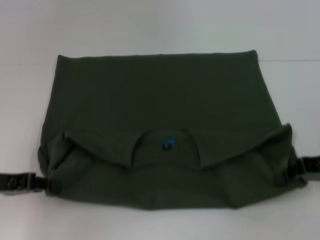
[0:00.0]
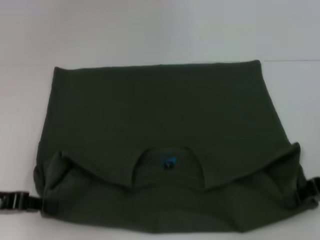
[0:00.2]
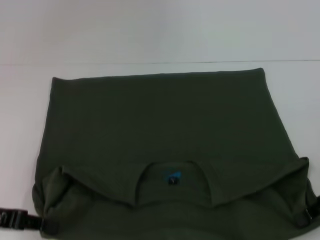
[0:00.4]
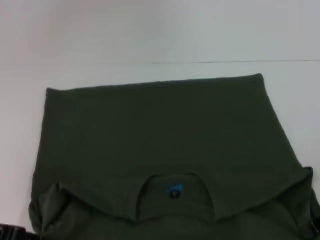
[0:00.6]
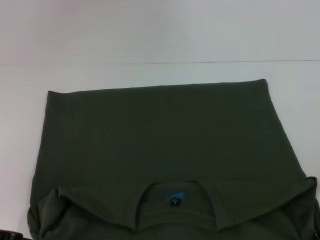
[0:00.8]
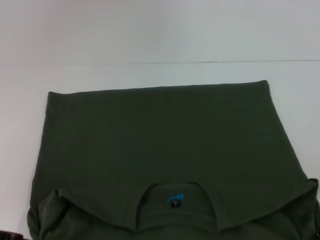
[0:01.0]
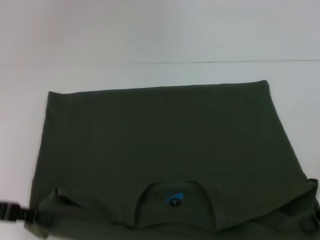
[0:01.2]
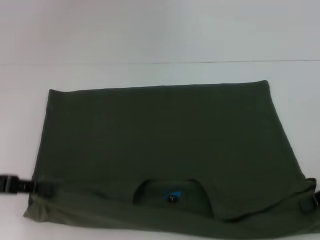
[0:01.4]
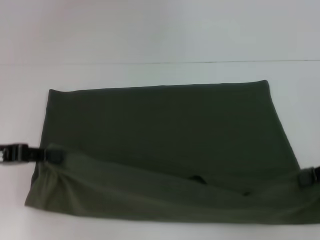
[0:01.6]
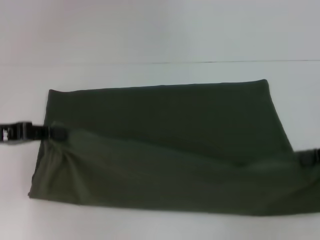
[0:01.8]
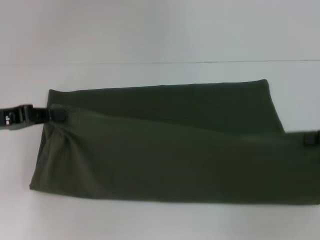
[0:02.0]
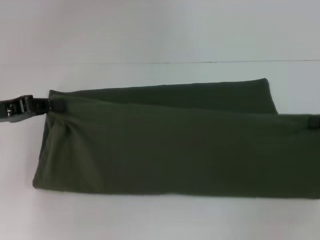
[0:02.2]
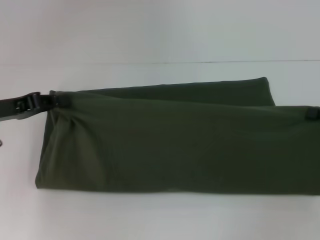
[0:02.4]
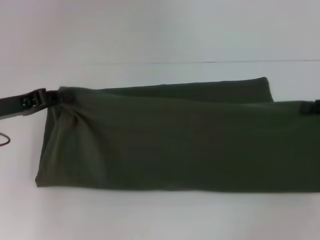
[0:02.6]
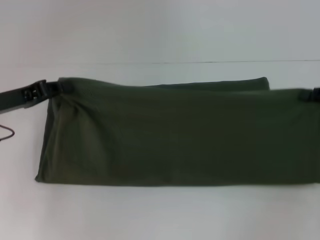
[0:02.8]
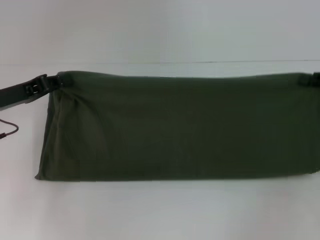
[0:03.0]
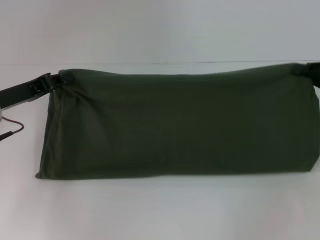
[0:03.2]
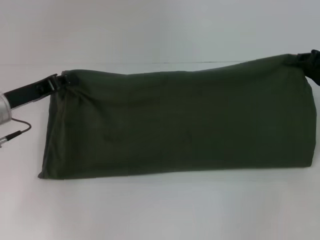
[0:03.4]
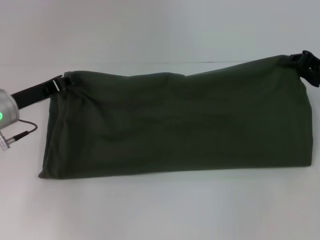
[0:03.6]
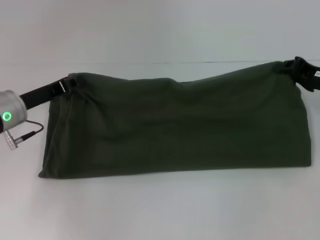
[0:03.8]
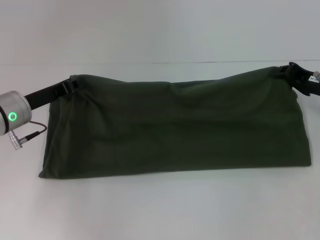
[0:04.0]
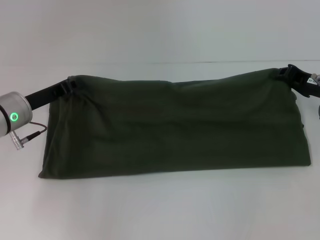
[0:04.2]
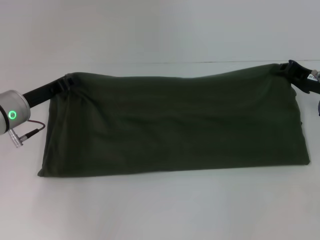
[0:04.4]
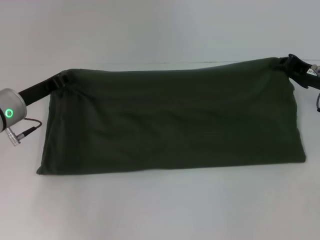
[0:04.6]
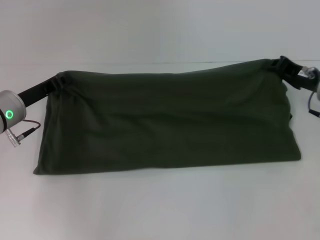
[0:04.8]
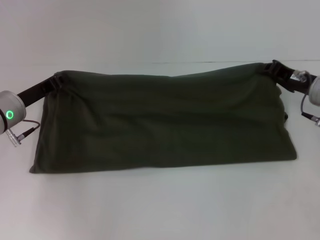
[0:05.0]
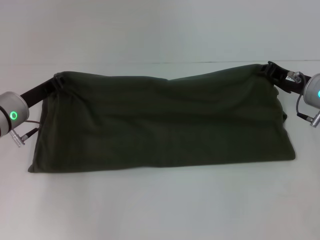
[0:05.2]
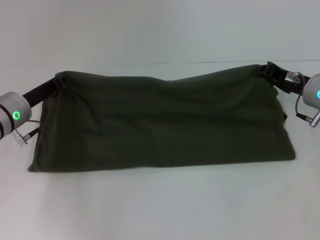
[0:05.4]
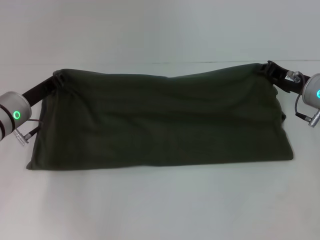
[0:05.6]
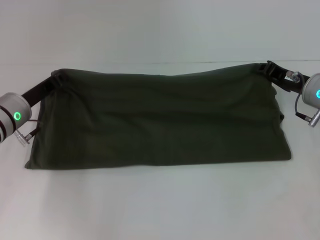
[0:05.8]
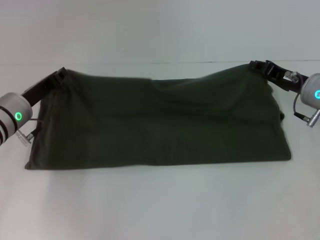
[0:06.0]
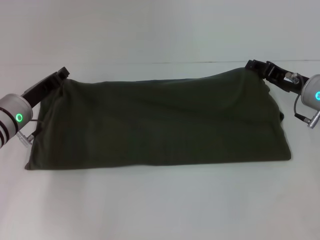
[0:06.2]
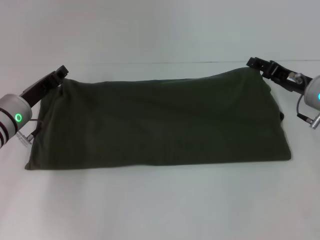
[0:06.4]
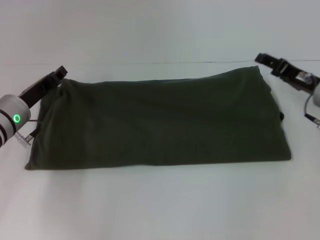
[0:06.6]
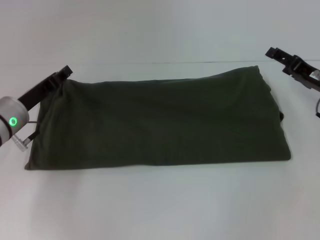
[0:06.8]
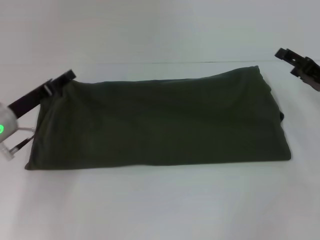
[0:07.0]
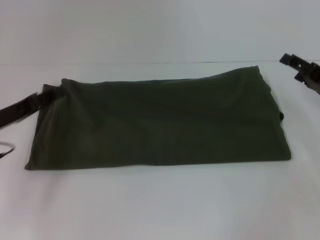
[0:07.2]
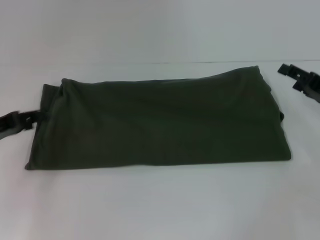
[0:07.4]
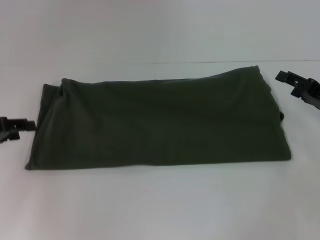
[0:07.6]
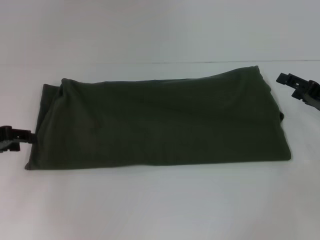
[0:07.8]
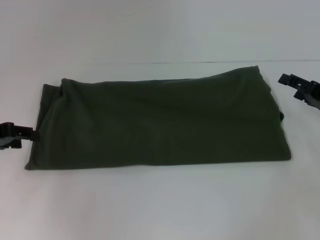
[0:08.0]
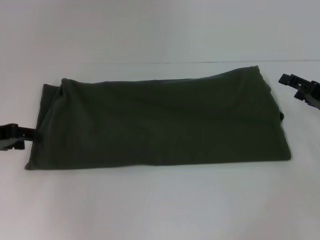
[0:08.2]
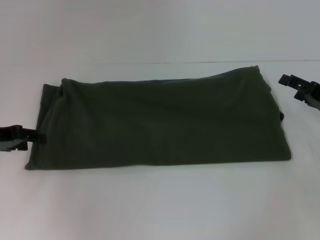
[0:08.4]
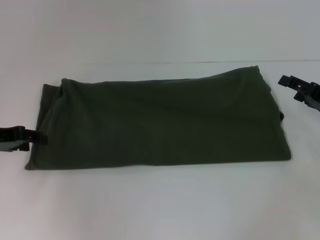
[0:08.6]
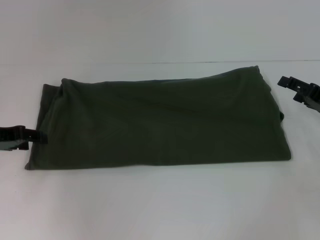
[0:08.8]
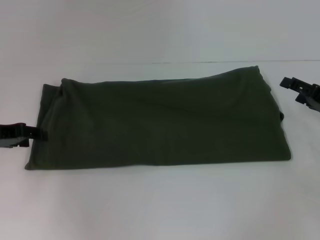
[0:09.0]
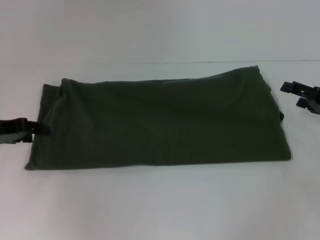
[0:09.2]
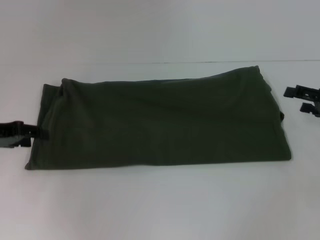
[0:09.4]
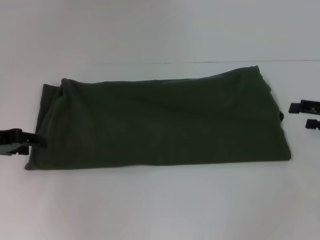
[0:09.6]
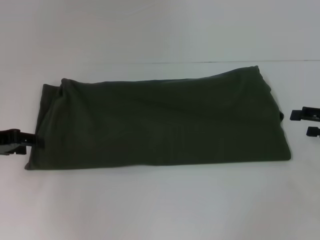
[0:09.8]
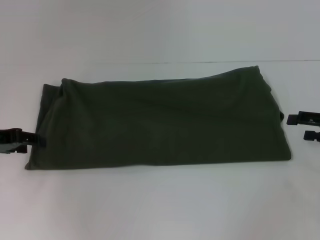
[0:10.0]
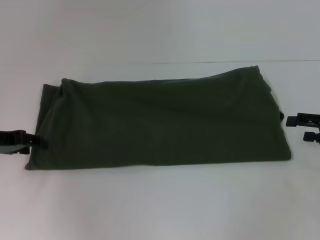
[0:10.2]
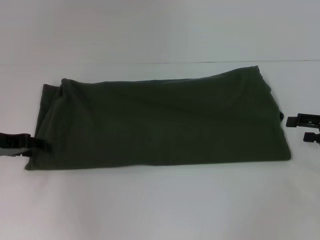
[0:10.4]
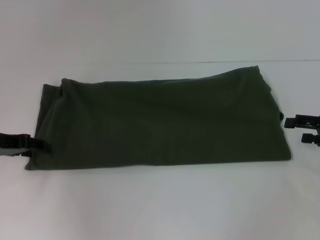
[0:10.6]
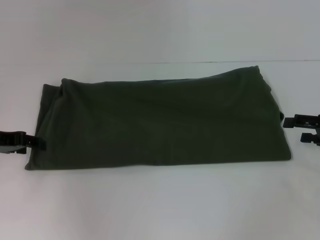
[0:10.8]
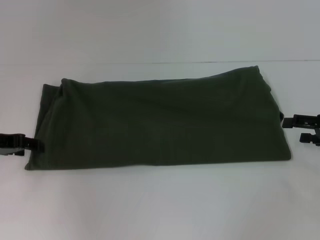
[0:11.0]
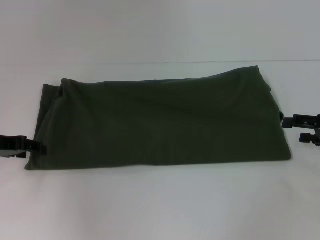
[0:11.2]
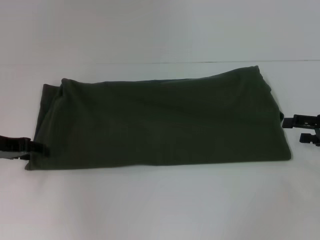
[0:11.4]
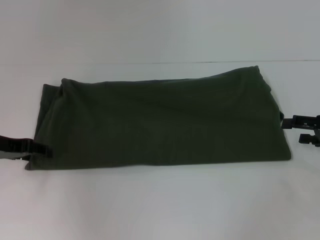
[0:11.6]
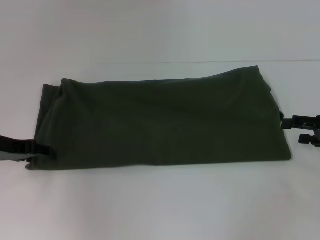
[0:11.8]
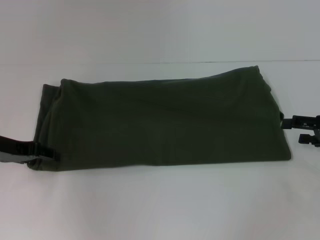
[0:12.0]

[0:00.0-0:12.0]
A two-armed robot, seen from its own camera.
Step, 0:00.8 to 0:06.0: Fold the clothes with your right hand.
0:01.6 to 0:03.0: The left gripper is displaced forward by about 5 cm.
0:03.0 to 0:04.4: The right gripper goes about 5 cm to the left. The left gripper shifts by about 5 cm.
0:04.4 to 0:06.0: The grippers make only small movements.
0:06.0 to 0:07.6: The right gripper heads to the right and backward, covering approximately 10 cm, and opens its fingers, while the left gripper shifts about 15 cm to the left, backward and upward, and opens.
0:07.6 to 0:09.0: The grippers make only small movements.
0:10.4 to 0:12.0: There are only small adjustments of the grippers.

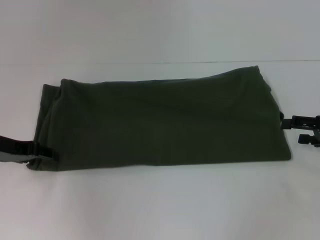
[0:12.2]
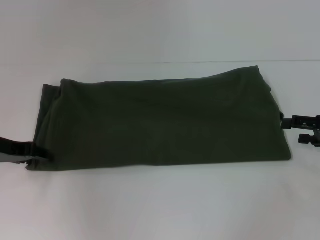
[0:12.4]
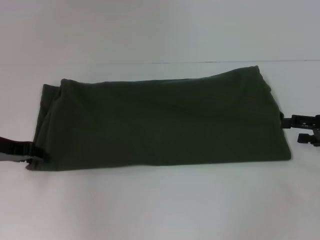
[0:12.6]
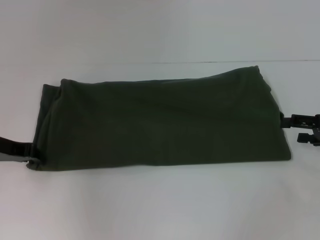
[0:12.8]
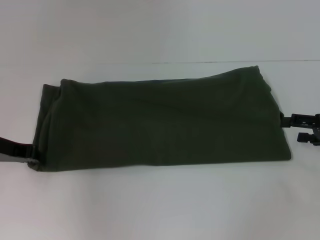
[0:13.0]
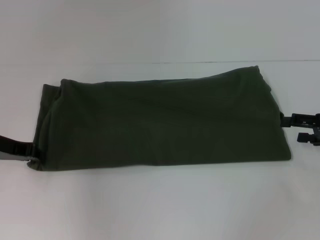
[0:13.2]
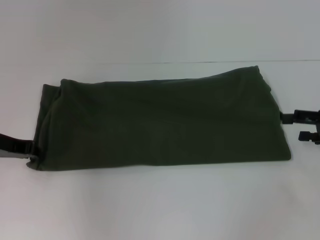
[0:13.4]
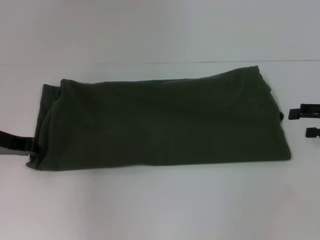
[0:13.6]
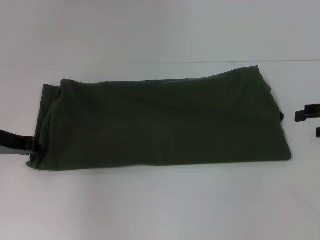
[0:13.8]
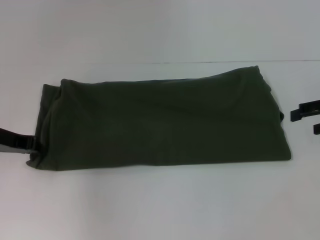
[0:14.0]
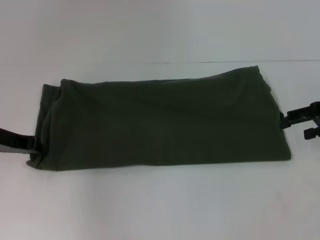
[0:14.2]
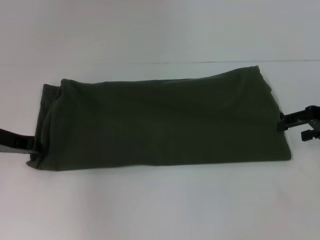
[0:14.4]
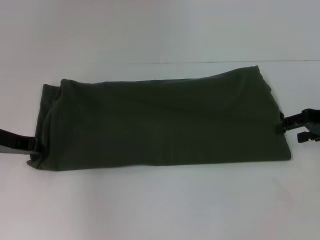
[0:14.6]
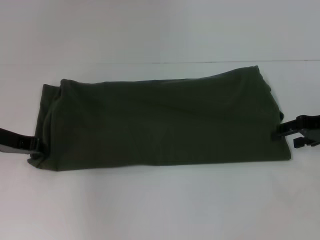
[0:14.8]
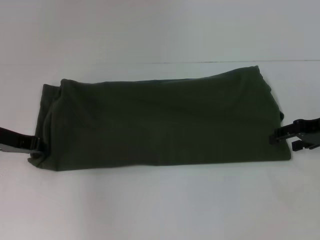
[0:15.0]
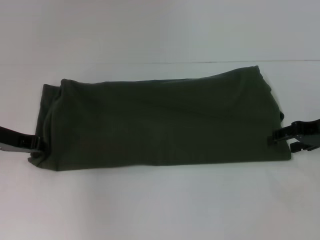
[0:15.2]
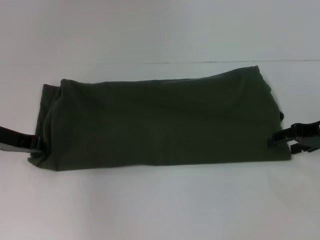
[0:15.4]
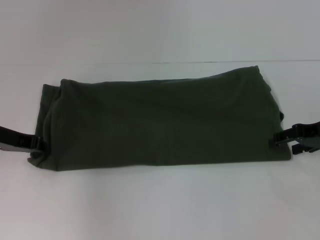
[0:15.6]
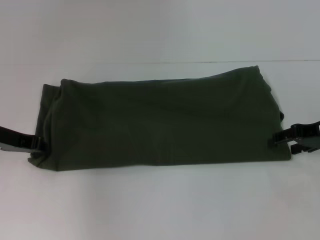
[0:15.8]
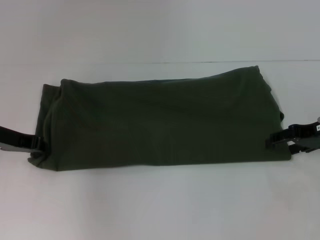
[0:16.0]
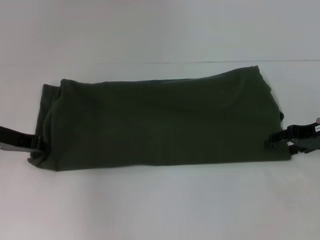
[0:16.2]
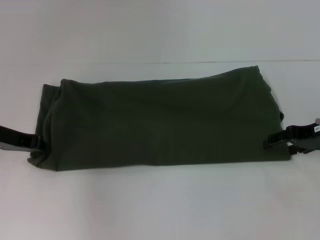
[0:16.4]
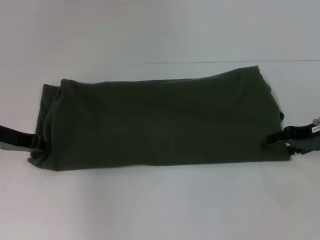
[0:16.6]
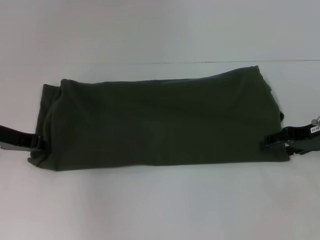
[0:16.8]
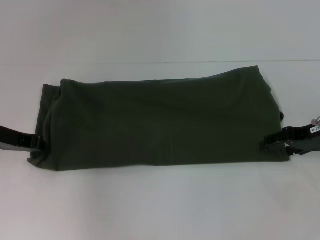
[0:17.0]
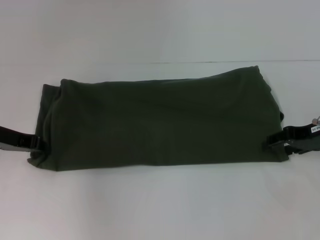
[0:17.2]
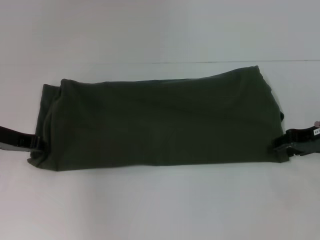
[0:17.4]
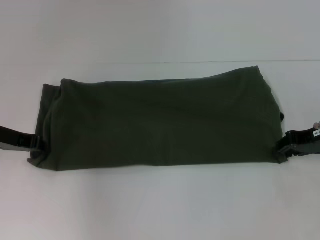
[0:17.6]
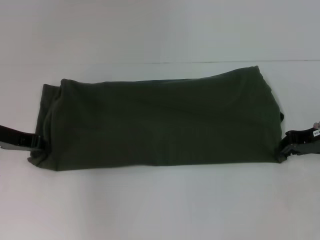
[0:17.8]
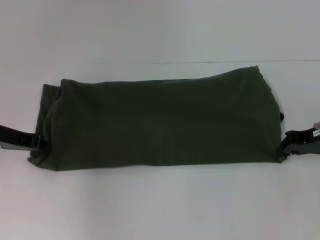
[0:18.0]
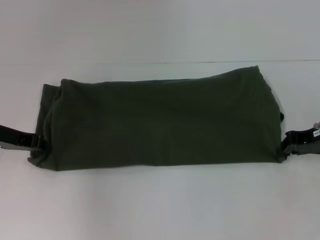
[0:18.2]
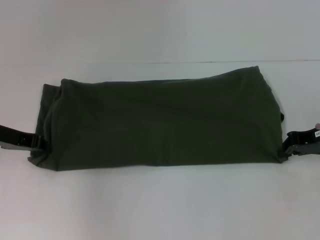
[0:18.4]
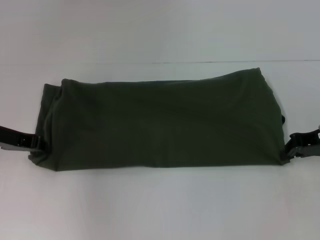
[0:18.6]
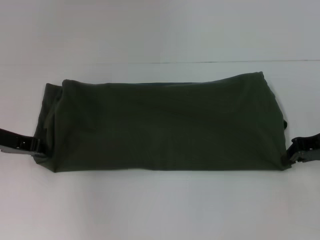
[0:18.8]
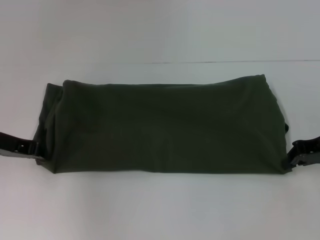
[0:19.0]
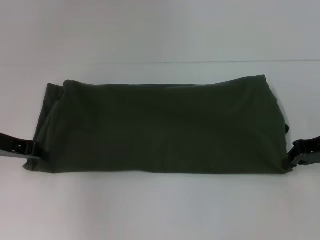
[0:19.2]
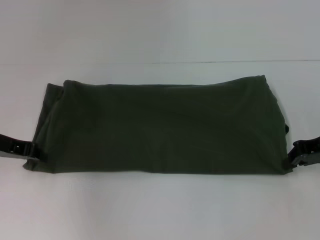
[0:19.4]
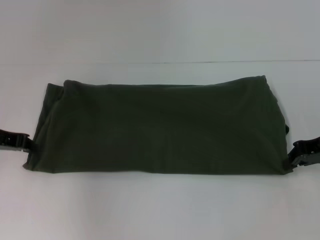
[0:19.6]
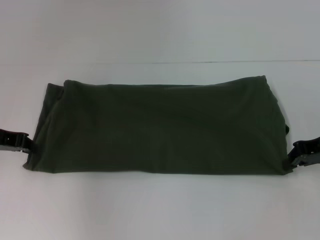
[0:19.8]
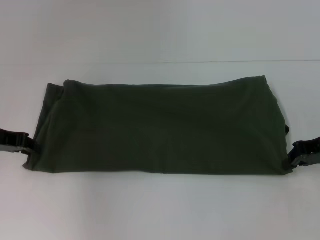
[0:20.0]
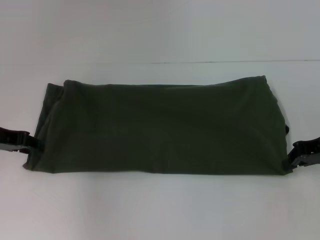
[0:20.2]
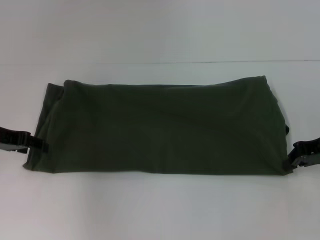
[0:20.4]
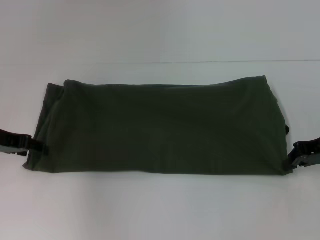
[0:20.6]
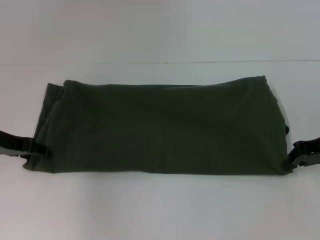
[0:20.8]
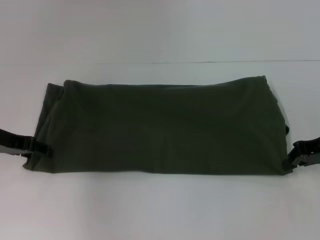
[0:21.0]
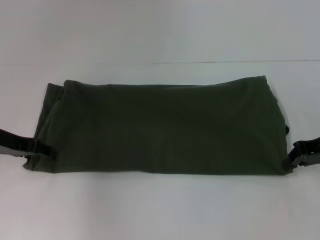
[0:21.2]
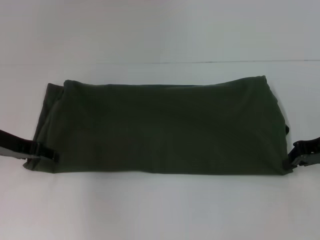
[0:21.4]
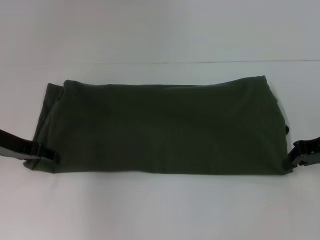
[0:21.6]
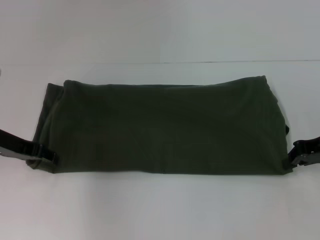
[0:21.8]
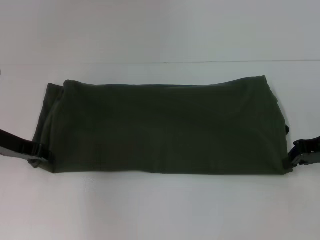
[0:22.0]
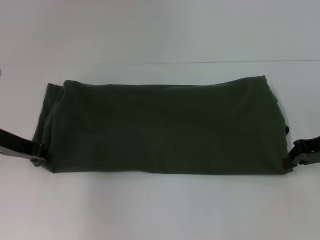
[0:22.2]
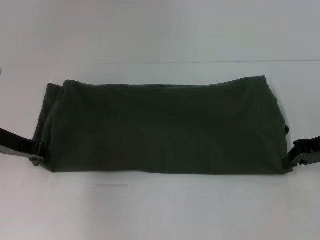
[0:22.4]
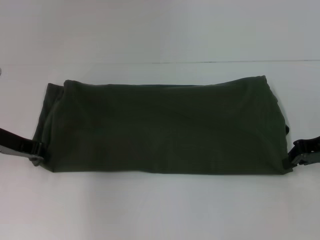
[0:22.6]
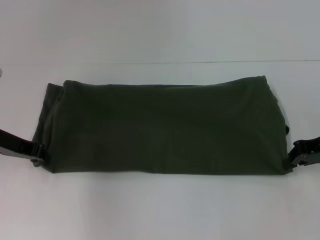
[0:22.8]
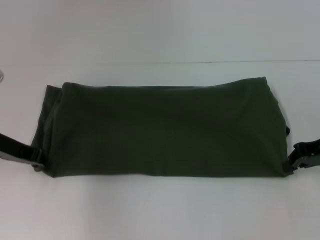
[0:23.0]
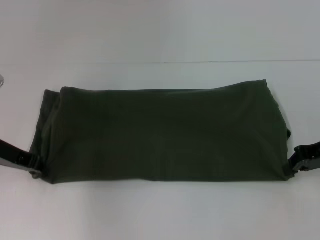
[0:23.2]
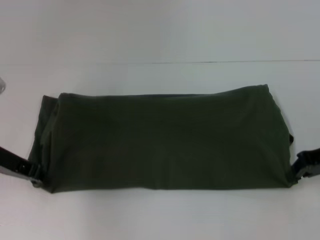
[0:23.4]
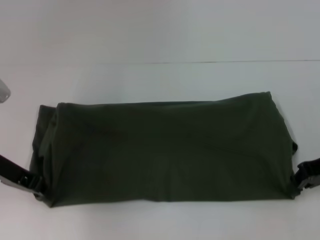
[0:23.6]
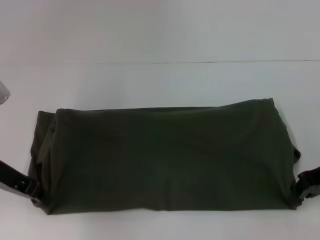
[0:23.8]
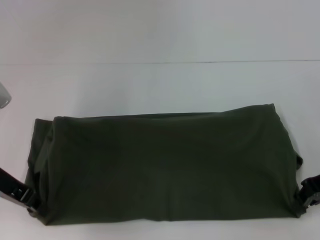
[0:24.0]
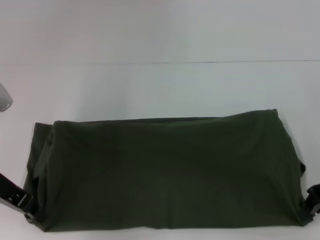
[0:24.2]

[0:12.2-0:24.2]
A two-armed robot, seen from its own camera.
0:12.2 to 0:13.8: The right gripper heads upward, covering roughly 5 cm; the left gripper closes its fingers.
0:13.8 to 0:15.2: The right gripper moves to the left, approximately 5 cm.
0:15.2 to 0:16.6: Both grippers stay put.
0:16.6 to 0:18.2: The right gripper closes up.
0:18.2 to 0:19.8: The grippers move only a little.
